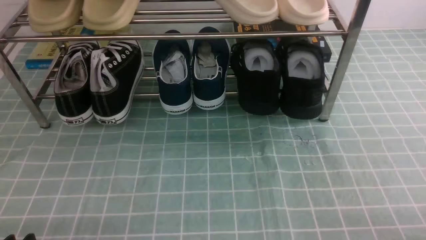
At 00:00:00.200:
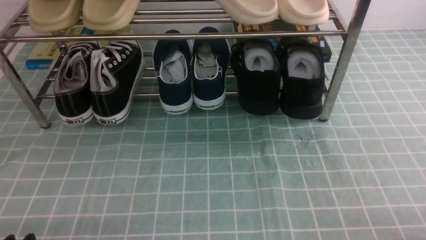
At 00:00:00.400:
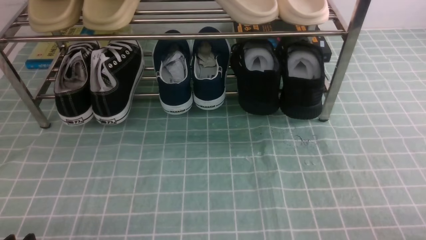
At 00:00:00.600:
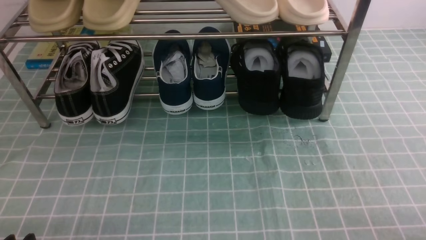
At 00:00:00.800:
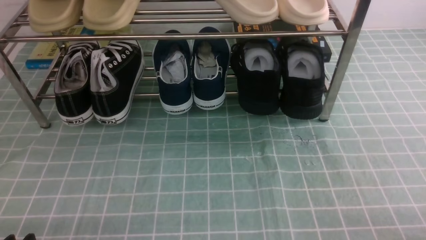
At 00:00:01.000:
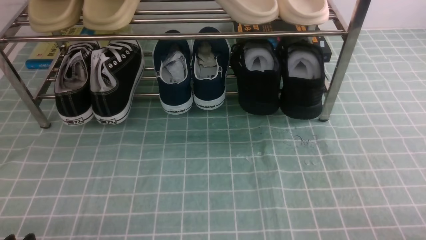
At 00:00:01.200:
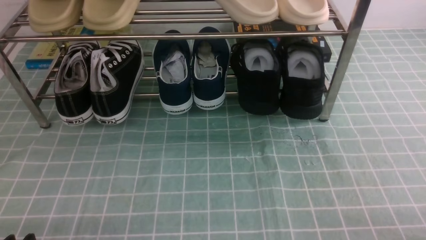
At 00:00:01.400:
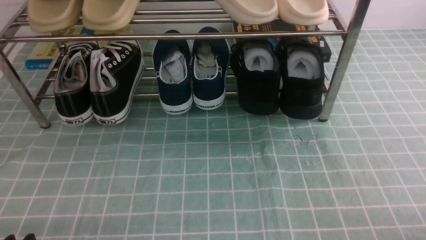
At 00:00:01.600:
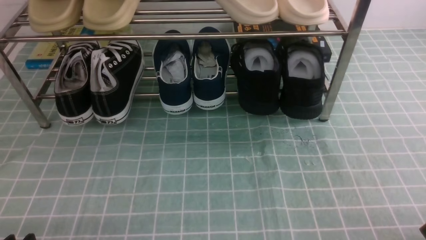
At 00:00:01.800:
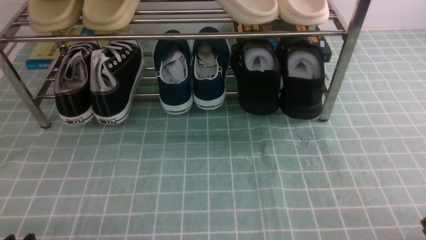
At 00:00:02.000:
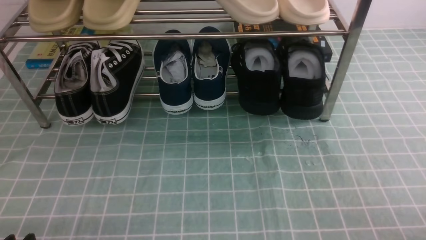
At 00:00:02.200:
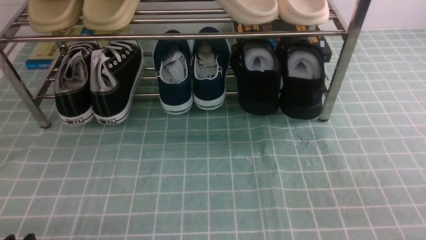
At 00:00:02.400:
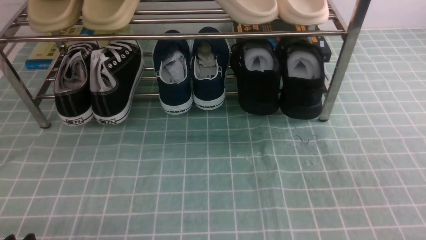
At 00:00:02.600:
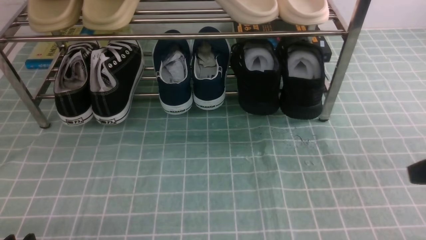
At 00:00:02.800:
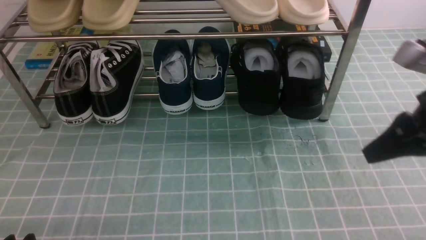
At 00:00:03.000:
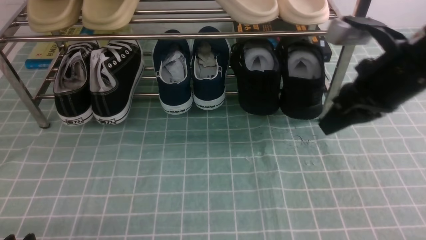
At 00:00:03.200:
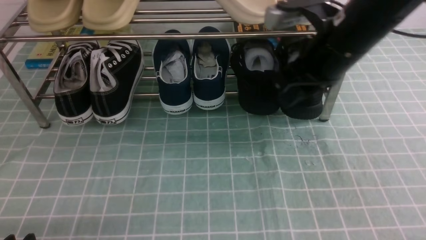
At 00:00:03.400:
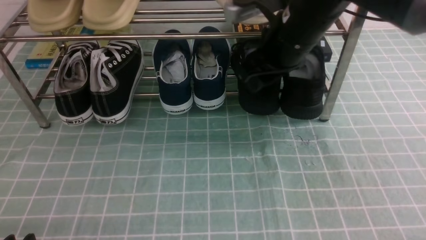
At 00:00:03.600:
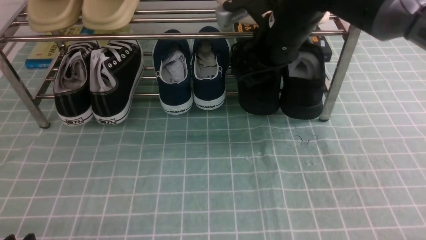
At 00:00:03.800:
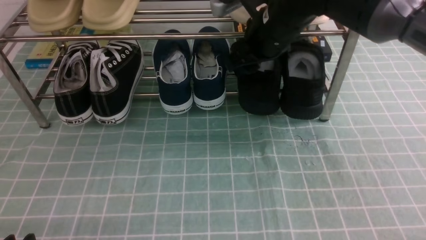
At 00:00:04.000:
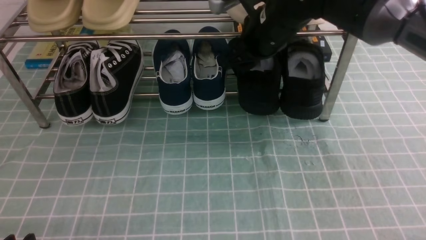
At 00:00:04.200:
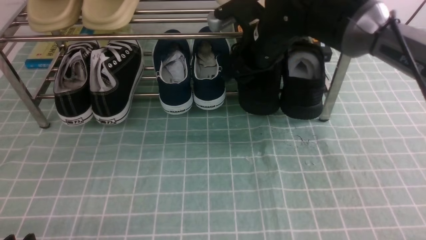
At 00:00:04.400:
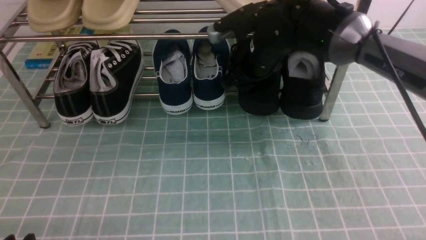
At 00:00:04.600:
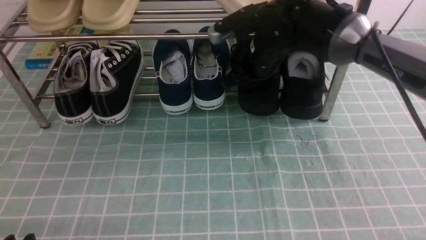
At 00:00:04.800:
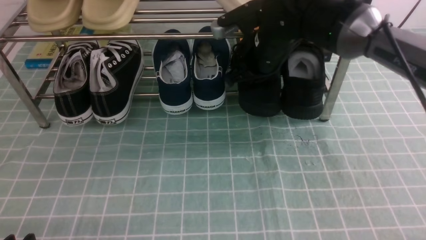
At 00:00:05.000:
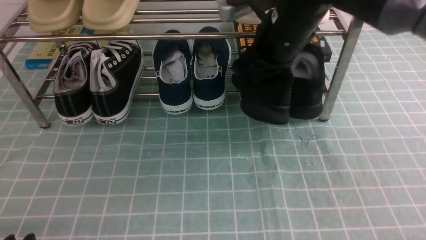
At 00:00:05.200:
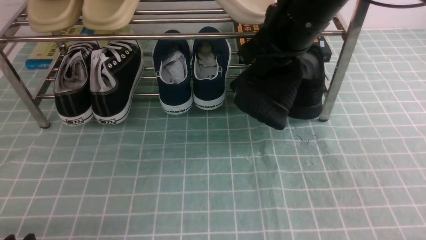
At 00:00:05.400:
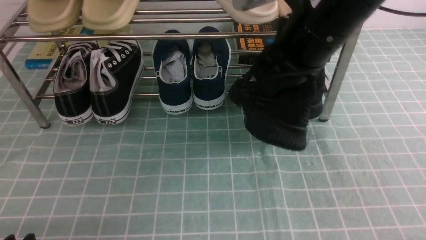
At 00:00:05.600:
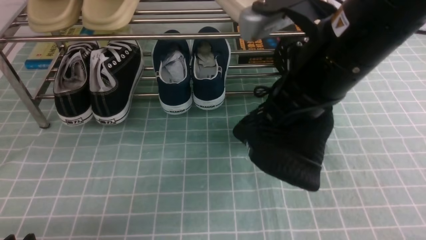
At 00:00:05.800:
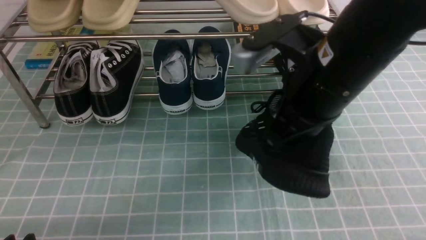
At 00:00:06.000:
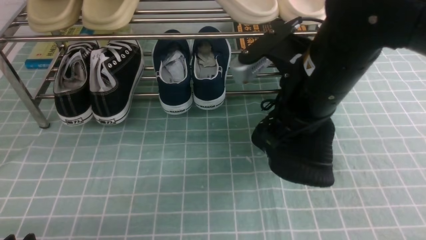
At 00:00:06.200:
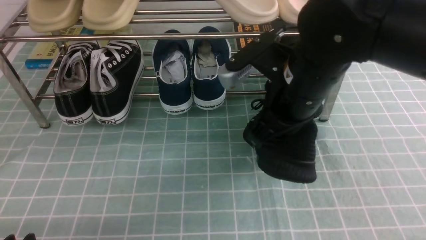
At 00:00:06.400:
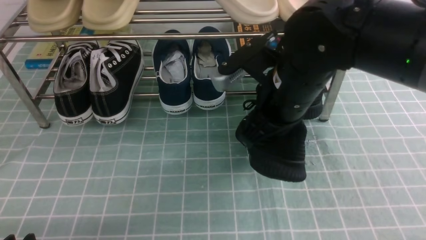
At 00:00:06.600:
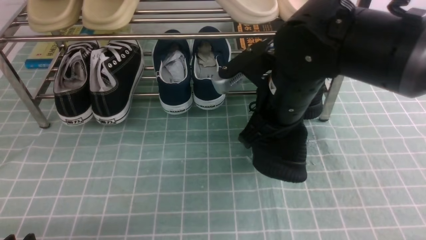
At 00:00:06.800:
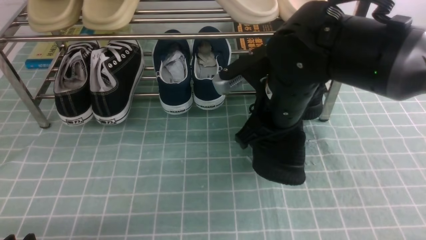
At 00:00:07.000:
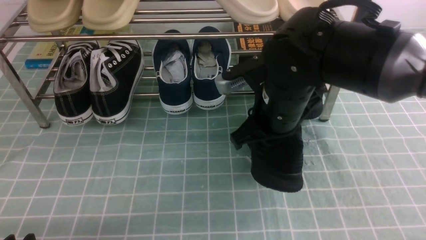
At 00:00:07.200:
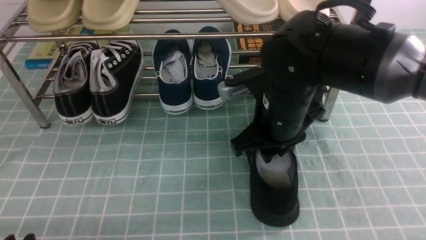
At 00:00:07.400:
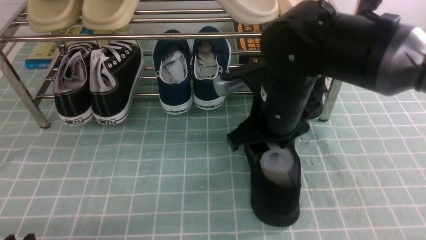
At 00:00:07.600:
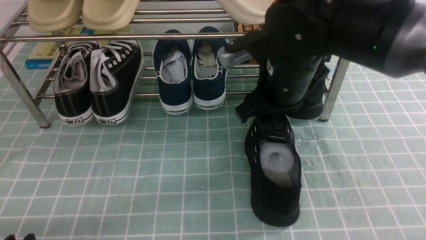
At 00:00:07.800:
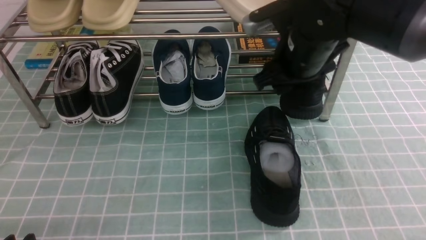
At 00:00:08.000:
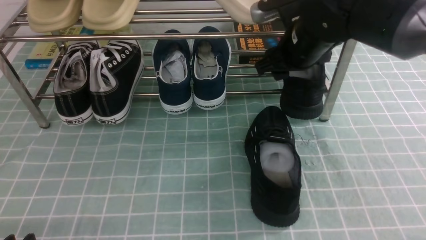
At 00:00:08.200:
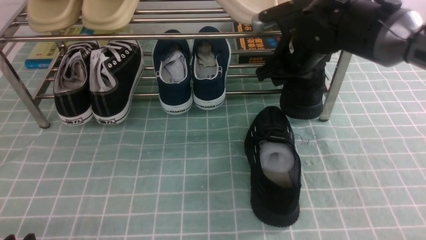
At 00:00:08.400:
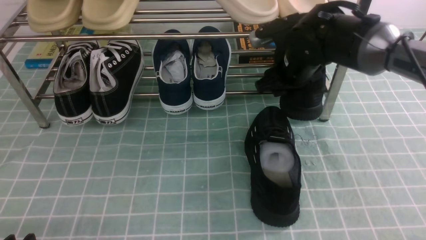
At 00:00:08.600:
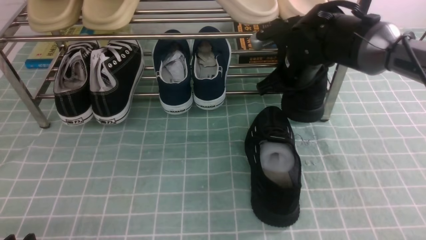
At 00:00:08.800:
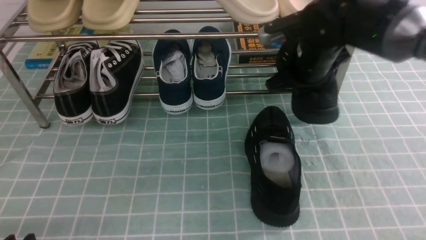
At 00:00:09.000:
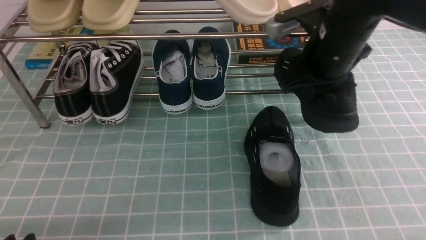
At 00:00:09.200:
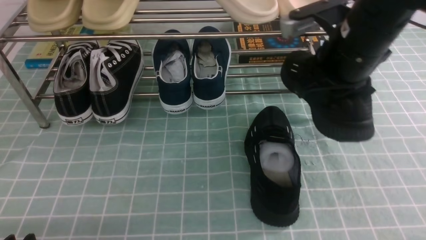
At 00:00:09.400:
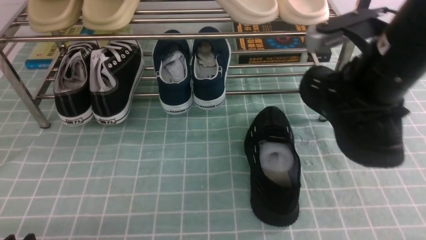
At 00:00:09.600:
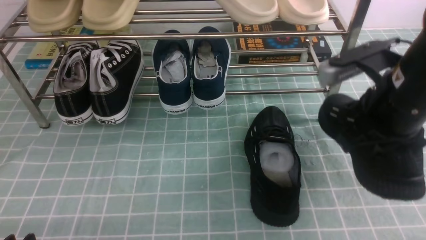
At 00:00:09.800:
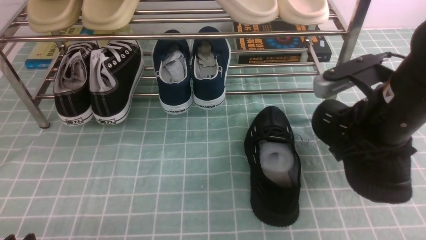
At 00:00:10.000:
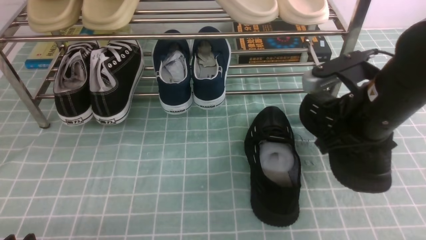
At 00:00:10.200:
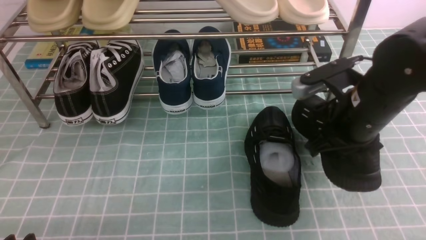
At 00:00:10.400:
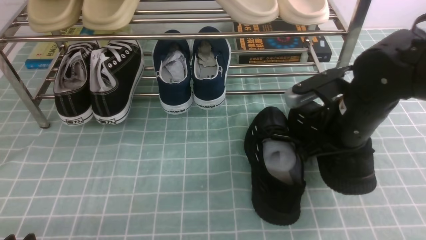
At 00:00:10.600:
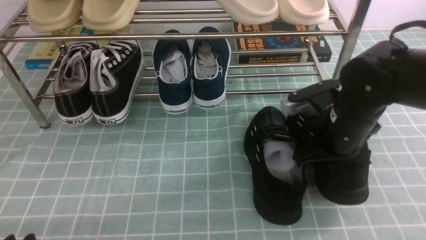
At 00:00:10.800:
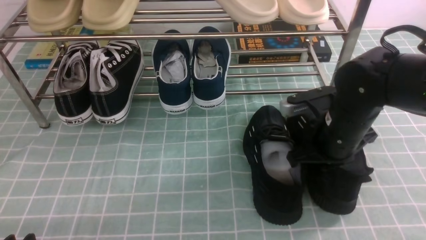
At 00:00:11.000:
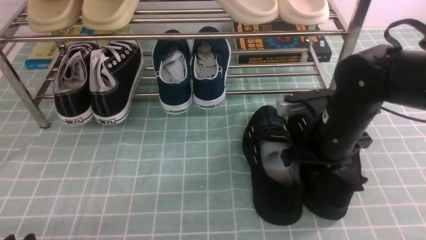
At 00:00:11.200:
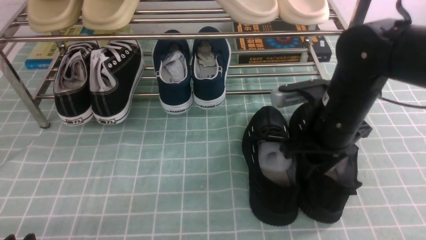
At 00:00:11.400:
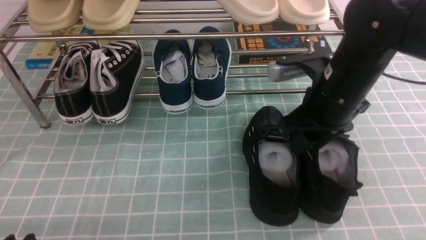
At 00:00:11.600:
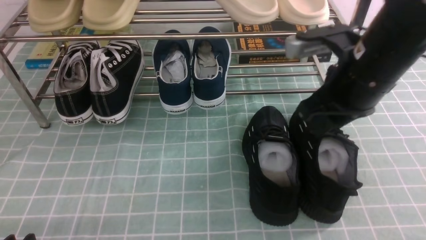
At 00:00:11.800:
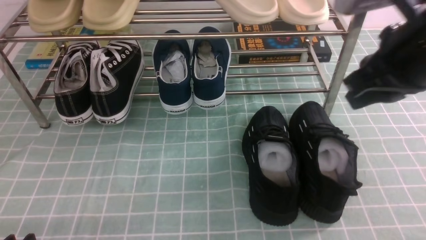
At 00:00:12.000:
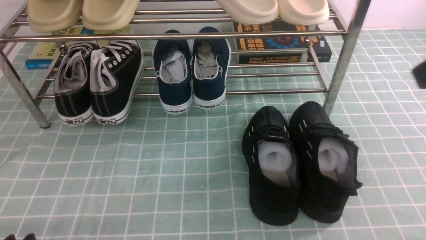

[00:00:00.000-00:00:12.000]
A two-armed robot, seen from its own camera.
Step, 00:00:00.000 to 00:00:04.600: use the right arm to clamp a shoe on the right side of the shoe rack.
Step, 00:00:04.800 to 00:00:07.400: use the right arm to take out the clamped shoe from the shoe rack and put it down.
Step, 00:00:07.600 to 00:00:08.400: use the right arm to clamp a shoe on the right side of the shoe rack.
Step, 00:00:08.600 to 00:00:11.400: use the right arm to take out the clamped shoe from the shoe rack and put it down.
00:00:01.600 to 00:00:03.000: The right gripper goes roughly 30 cm forward, upward and to the left.
00:00:03.000 to 00:00:04.400: The right gripper moves forward, to the left and downward, some 20 cm, and opens its fingers.
00:00:04.400 to 00:00:06.000: The right gripper travels backward by roughly 15 cm, and closes.
00:00:06.000 to 00:00:07.600: The right gripper goes approximately 5 cm forward, and opens.
00:00:07.600 to 00:00:09.000: The right gripper is displaced to the right by some 5 cm, goes forward and returns, approximately 10 cm each way, and closes.
00:00:09.000 to 00:00:10.400: The right gripper goes about 10 cm downward.
00:00:10.400 to 00:00:12.000: The right gripper travels upward and backward by approximately 25 cm, and opens, then closes again.

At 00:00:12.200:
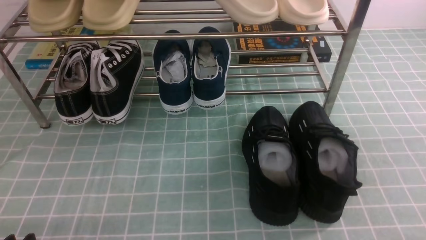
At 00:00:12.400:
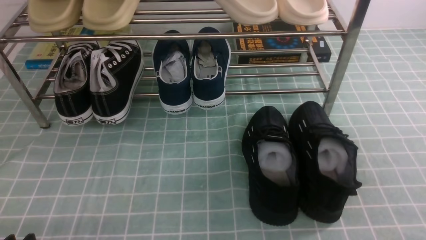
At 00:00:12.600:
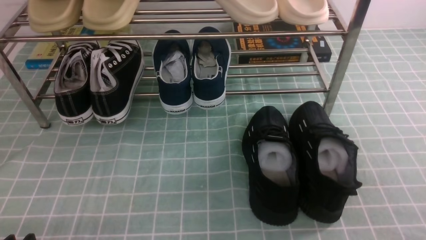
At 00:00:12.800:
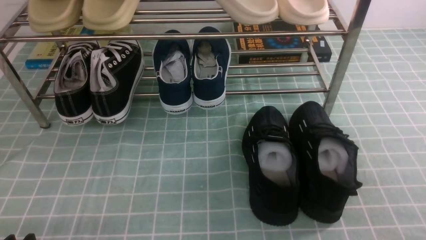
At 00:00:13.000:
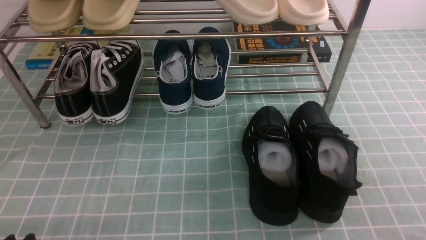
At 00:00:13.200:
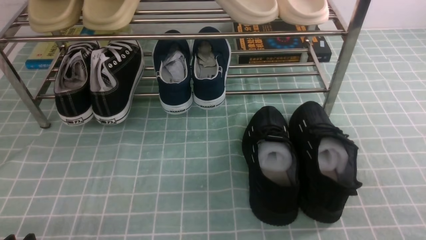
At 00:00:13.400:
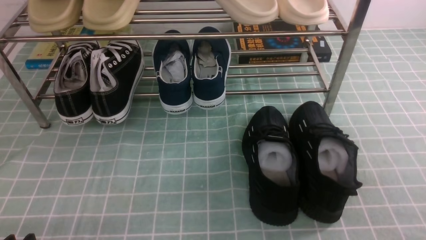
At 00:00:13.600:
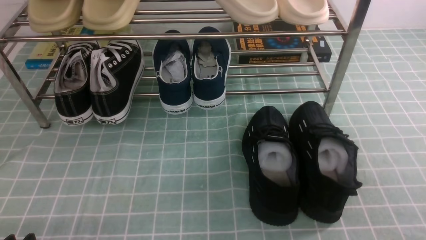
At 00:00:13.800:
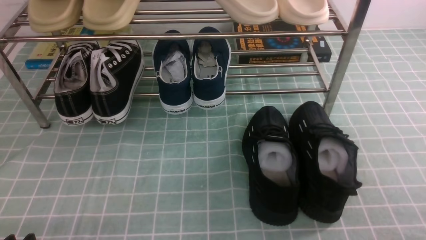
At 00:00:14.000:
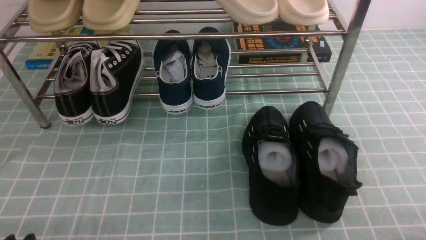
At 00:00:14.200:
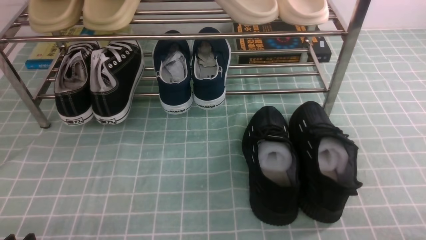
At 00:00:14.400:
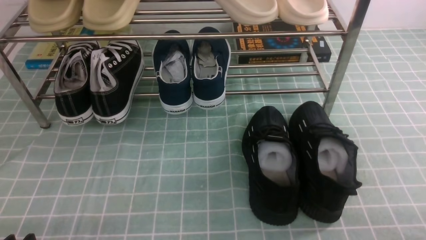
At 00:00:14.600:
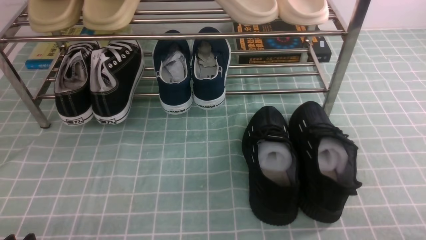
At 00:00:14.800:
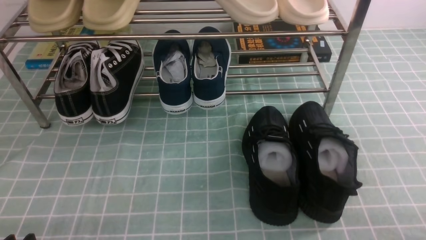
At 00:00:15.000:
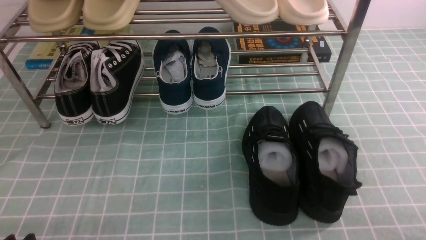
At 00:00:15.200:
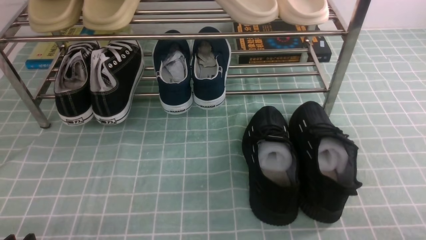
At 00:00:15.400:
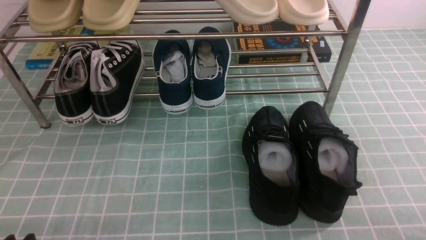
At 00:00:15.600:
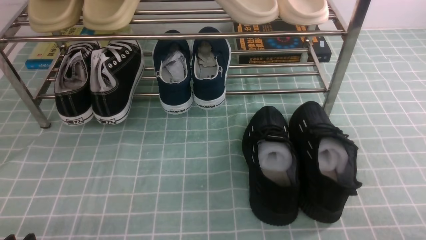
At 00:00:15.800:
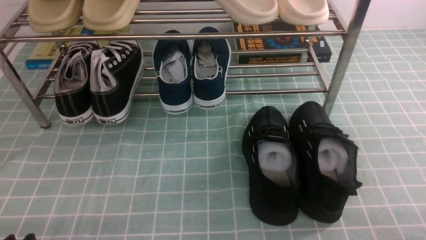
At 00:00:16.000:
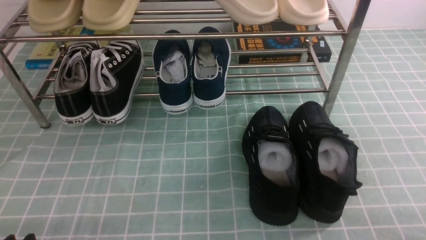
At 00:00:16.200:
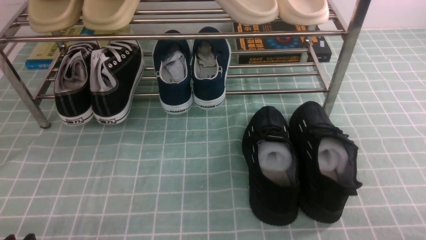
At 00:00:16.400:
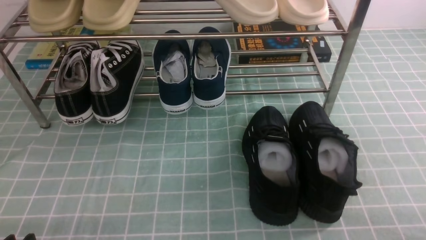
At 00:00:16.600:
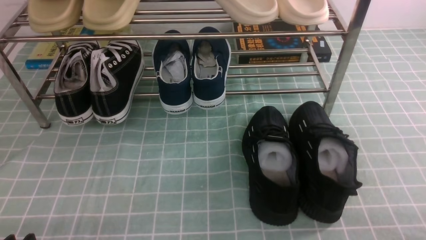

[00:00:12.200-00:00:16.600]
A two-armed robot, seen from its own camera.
00:00:15.200 to 00:00:16.600: Neither gripper changes place.
